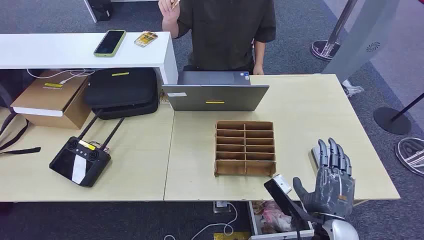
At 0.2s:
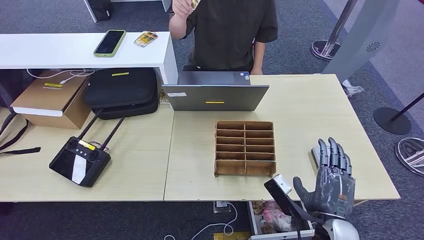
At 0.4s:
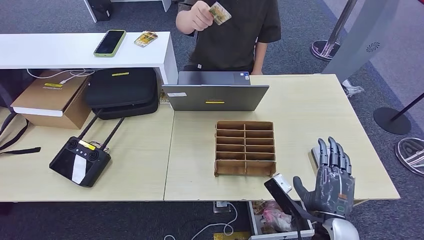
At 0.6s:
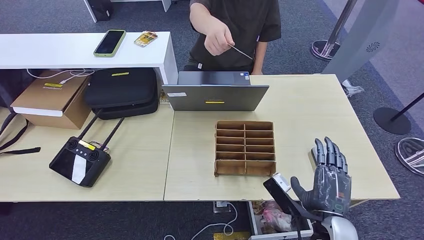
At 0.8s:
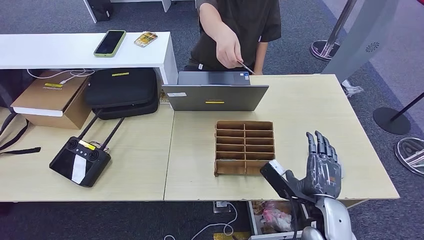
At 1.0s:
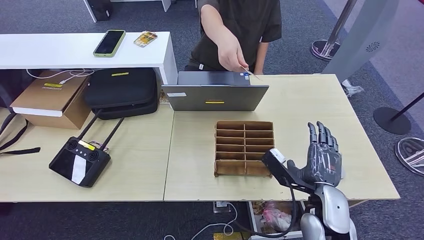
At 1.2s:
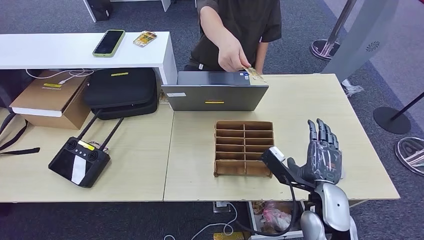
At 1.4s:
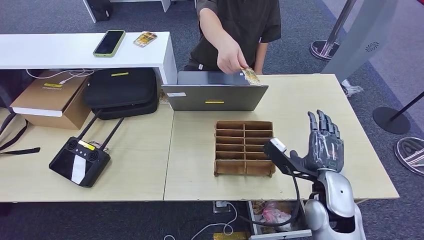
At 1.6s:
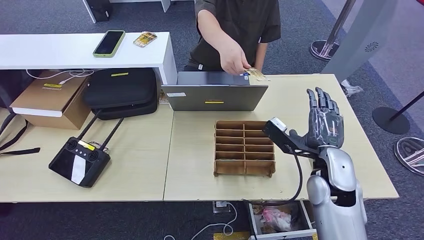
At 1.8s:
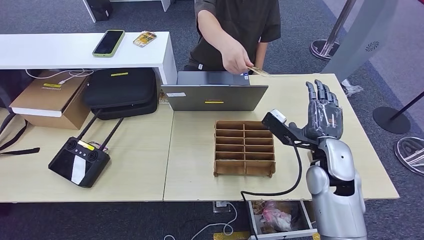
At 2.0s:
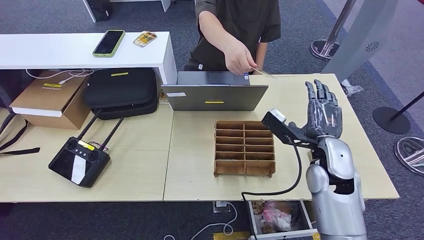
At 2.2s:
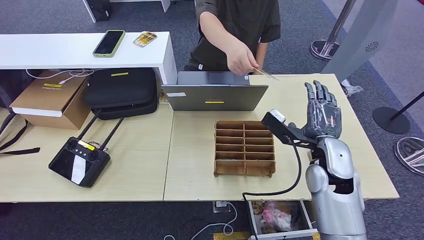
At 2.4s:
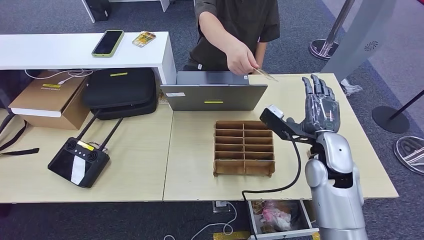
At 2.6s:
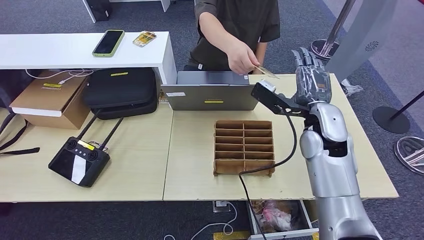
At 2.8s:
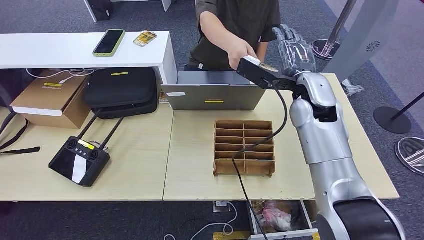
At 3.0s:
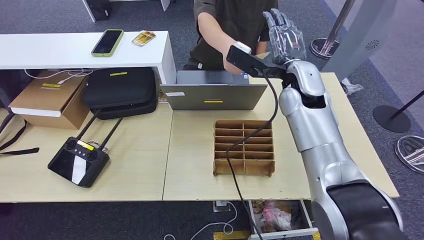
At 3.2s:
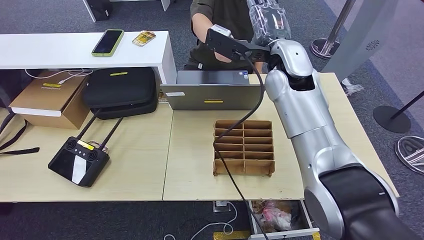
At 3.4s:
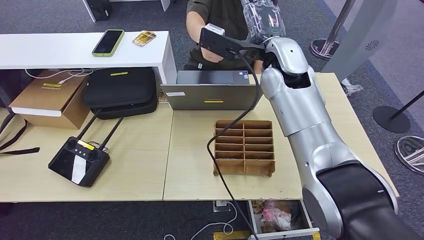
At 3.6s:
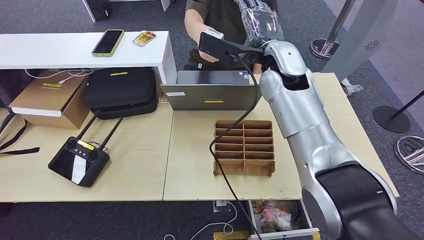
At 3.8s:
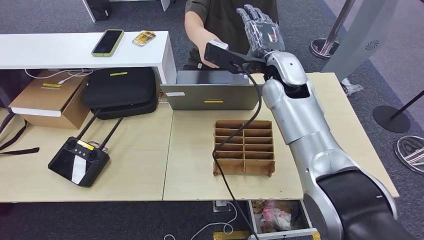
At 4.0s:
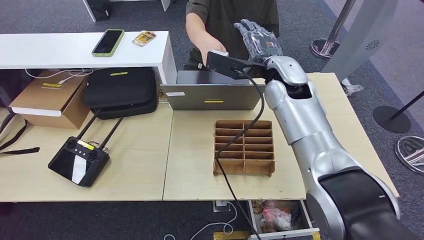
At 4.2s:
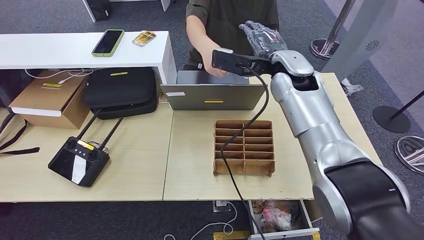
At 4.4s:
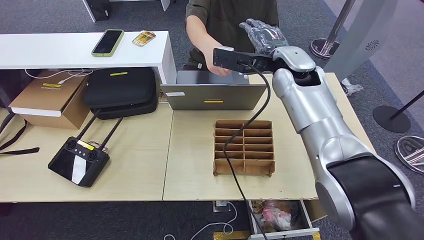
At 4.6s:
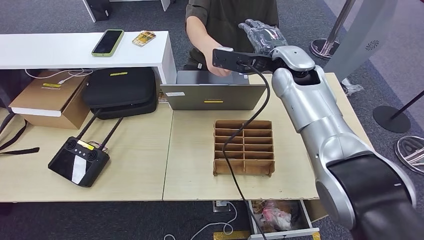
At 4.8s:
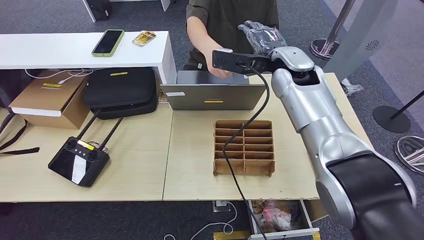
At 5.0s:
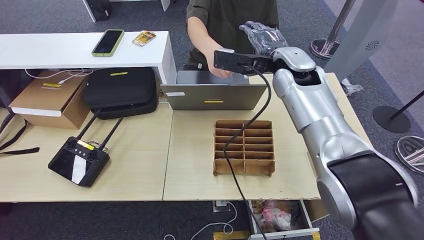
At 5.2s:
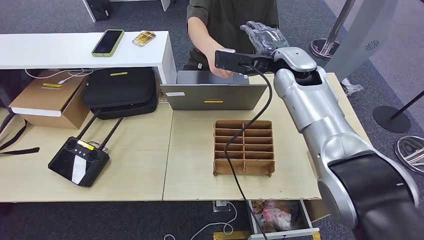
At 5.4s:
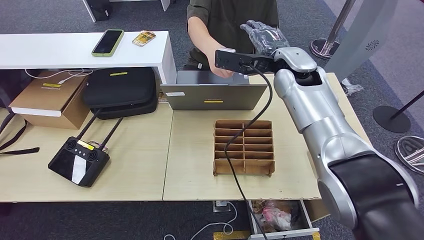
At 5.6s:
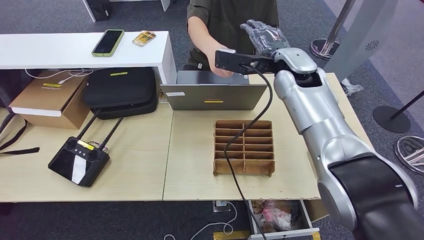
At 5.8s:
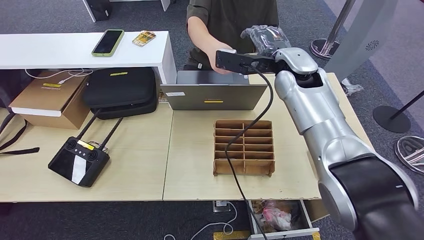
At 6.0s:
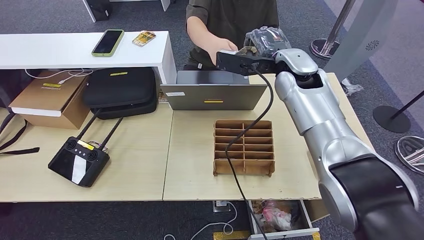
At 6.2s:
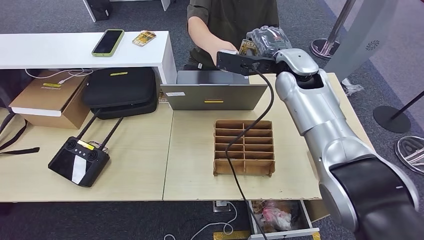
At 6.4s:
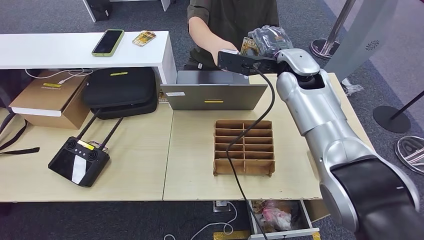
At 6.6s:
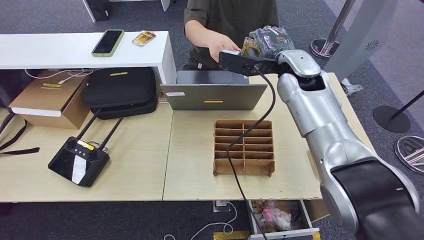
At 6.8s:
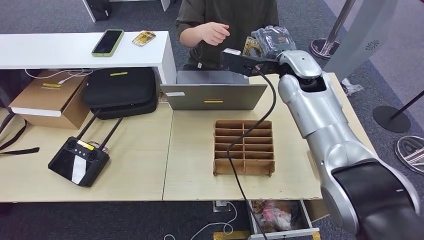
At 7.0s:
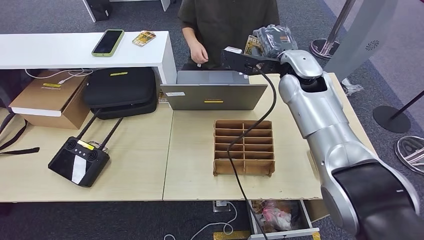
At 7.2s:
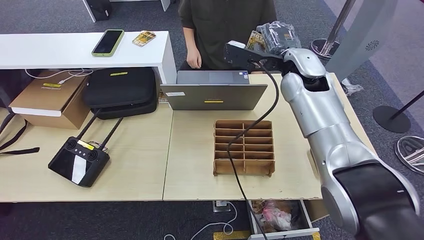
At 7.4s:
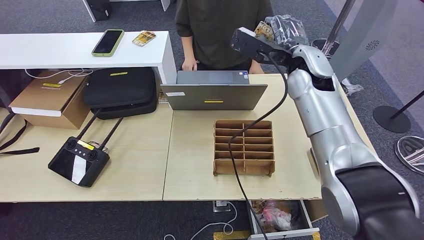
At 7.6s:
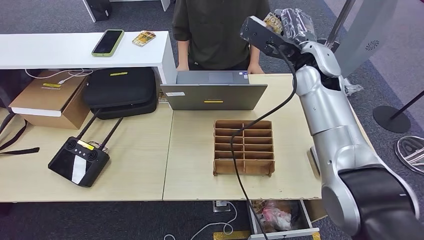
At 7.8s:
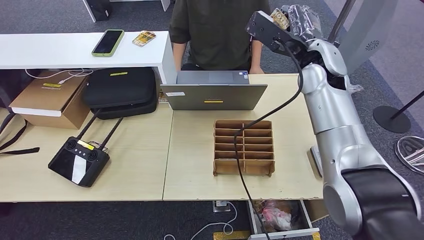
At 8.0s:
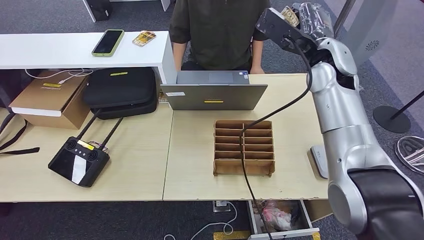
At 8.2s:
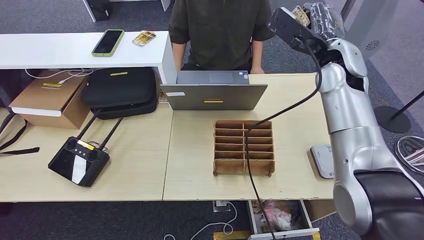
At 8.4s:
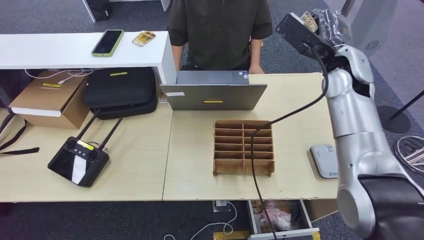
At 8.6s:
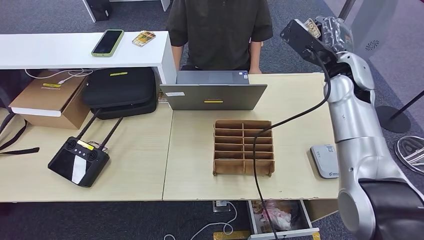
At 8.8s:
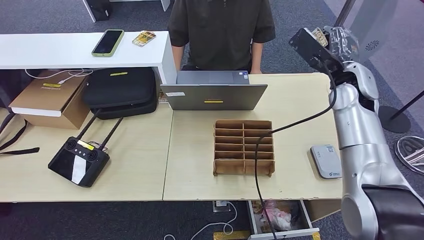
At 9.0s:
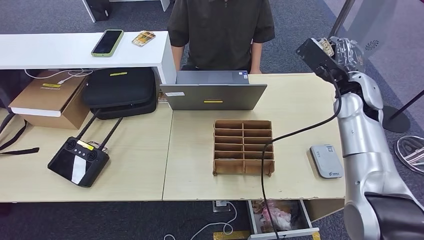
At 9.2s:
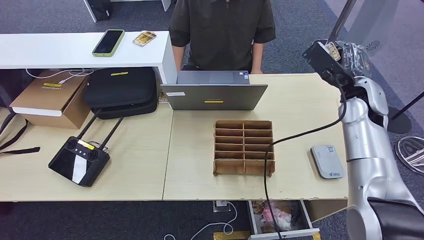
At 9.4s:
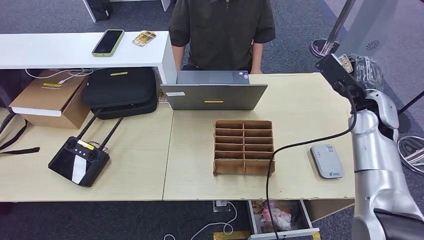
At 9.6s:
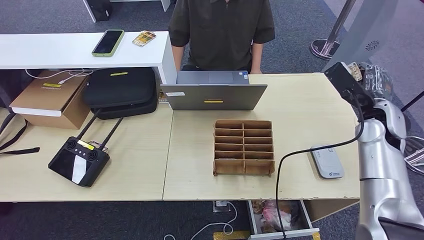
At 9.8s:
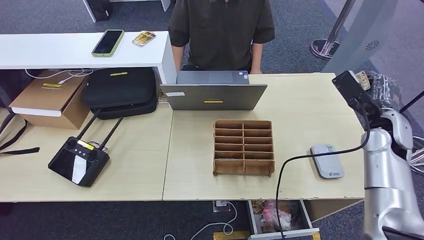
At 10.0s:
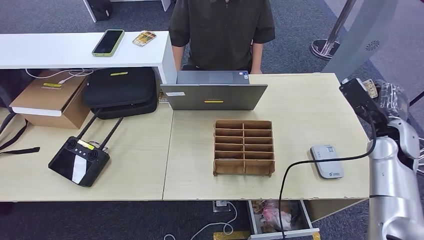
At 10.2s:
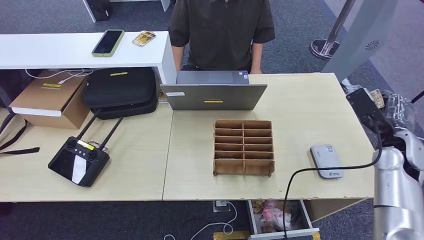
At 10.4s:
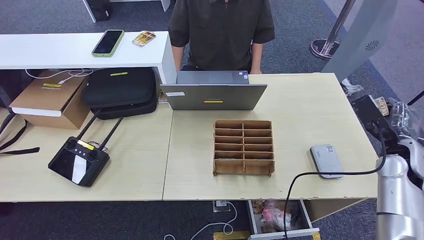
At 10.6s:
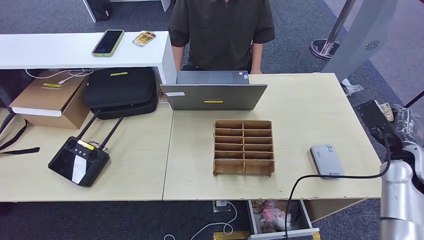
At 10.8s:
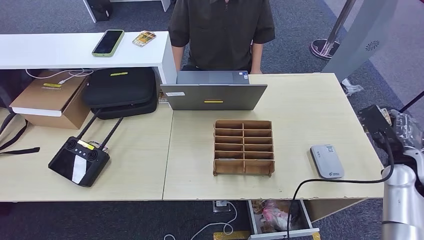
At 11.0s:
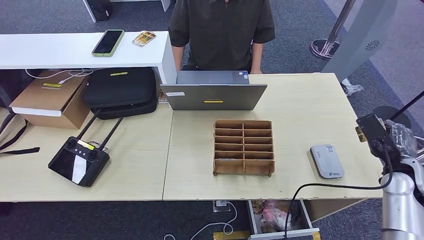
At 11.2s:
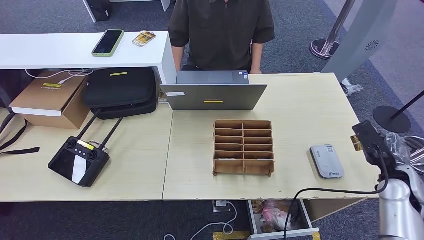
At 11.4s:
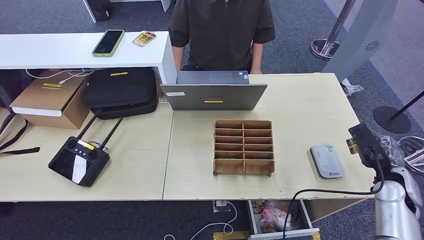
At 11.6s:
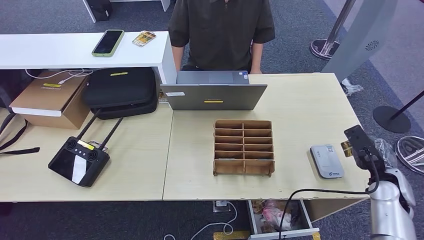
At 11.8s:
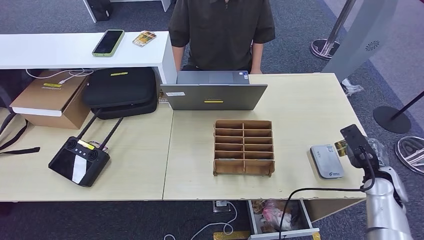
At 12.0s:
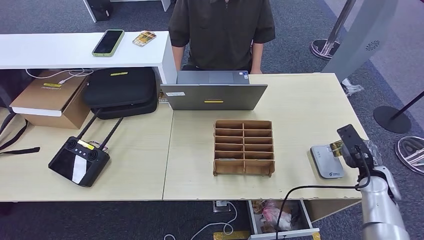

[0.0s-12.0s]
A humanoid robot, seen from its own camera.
Step, 0.0s to 6.8s: Take the ID card from the person's hand.
1.6s to 3.0s: The right hand is displaced forward and upward by some 20 cm.
4.4s to 6.0s: Neither hand changes place.
7.6s to 9.0s: The right hand heads to the right and downward, covering some 15 cm.
9.0s to 10.4s: The right hand moves to the right, downward and backward, roughly 20 cm.
10.4s to 12.0s: The right hand heads downward, covering about 10 cm.

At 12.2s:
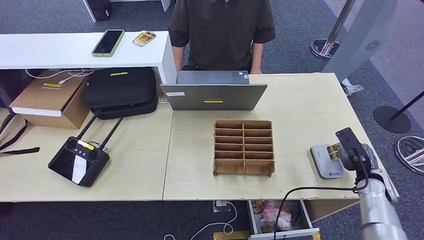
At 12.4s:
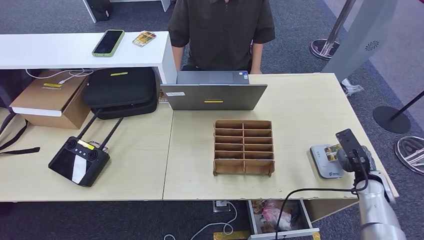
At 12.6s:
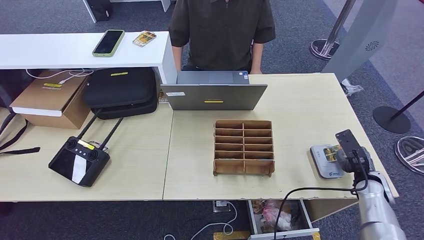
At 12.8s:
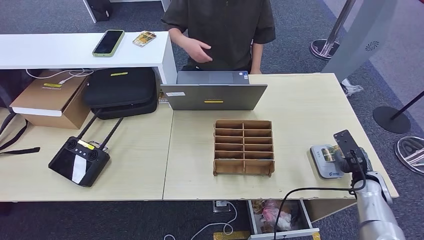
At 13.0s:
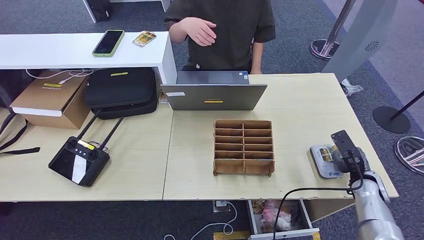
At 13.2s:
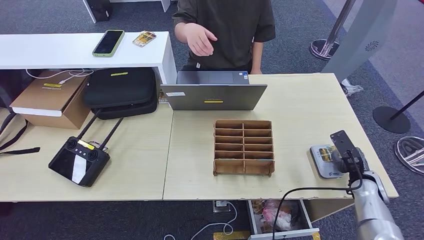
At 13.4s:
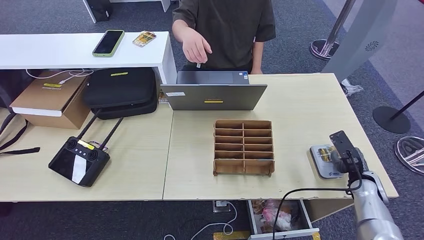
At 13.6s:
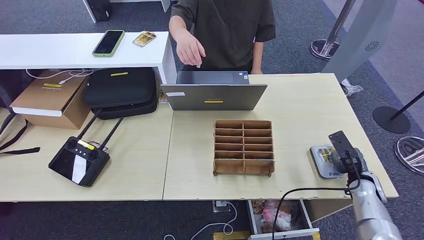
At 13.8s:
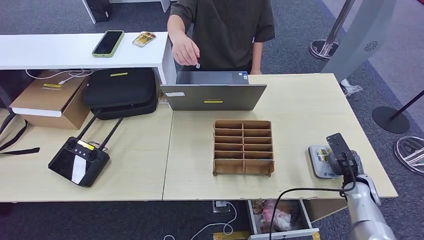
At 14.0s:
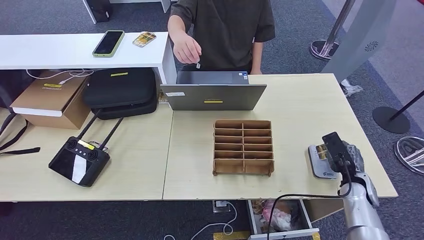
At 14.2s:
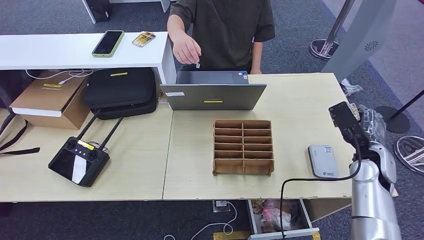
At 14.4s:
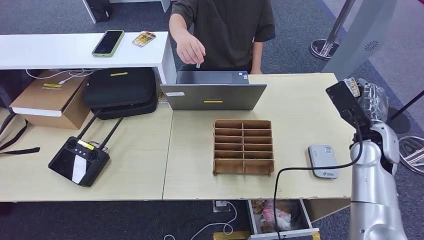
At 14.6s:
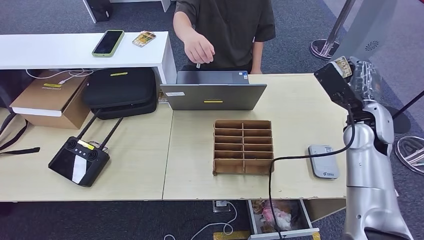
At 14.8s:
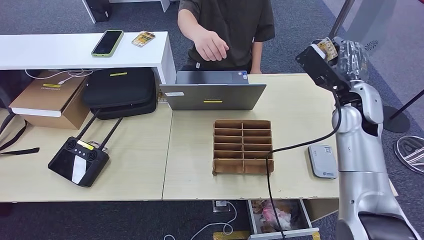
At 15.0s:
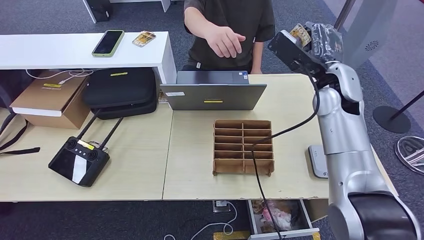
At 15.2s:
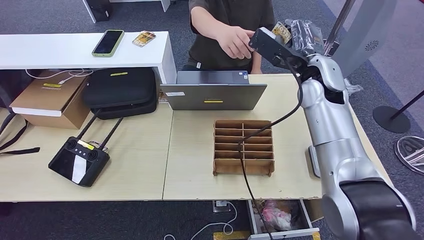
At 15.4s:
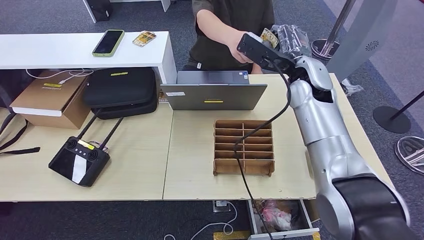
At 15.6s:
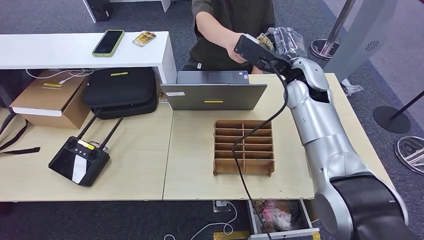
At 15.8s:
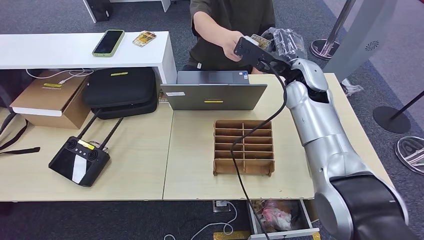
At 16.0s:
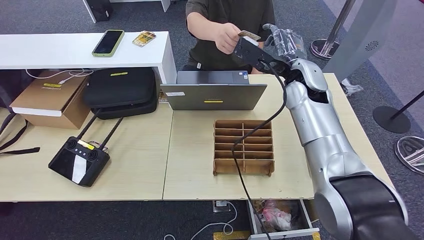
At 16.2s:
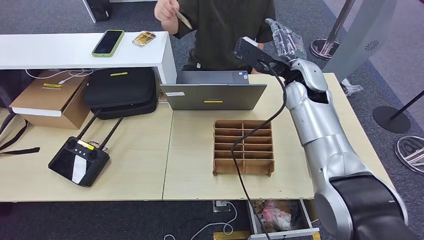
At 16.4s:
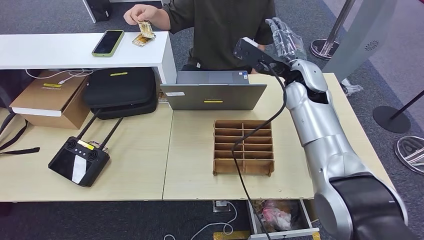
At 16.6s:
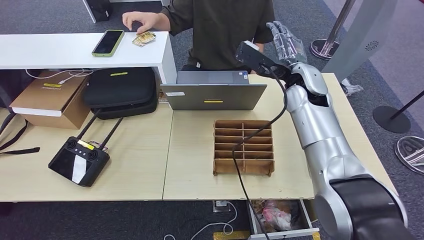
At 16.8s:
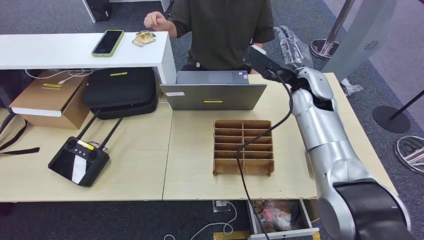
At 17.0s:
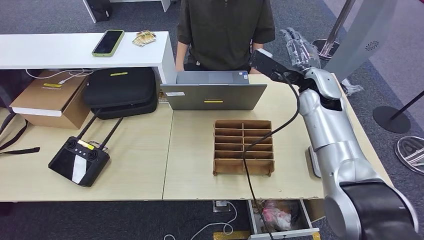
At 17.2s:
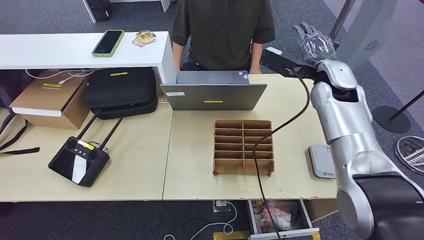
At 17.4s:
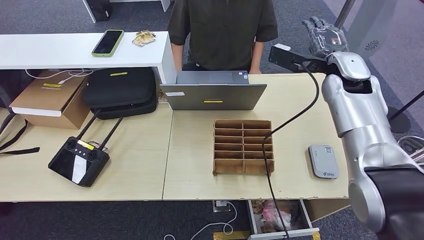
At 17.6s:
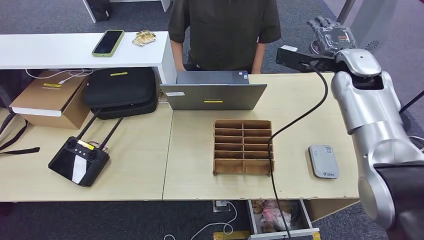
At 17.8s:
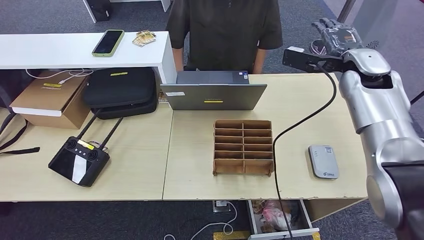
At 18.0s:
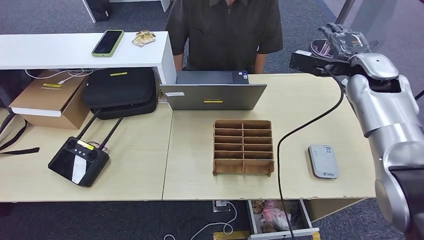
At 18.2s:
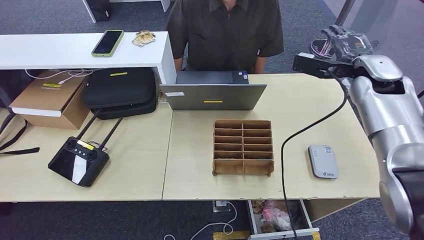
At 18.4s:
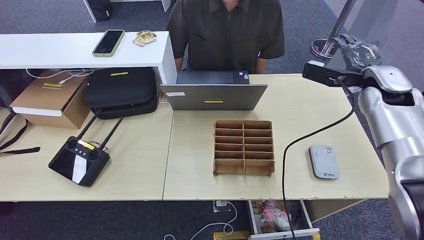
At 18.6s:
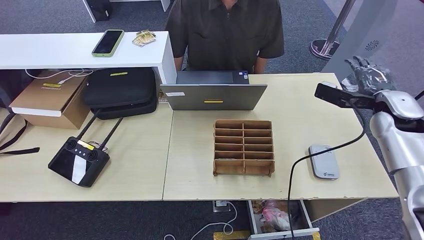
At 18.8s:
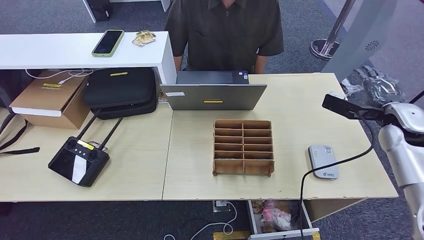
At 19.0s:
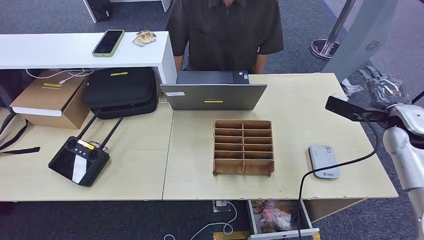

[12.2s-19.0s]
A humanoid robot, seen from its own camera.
Step, 12.2s to 16.6s: Hand the ID card to the person.
12.2s to 13.6s: The hands move only a little.
13.6s to 15.0s: The right hand goes about 35 cm upward, to the left and forward.
15.0s to 16.2s: The right hand moves to the left, some 5 cm.
16.2s to 17.6s: The right hand is displaced to the right by some 10 cm.
17.6s to 19.0s: The right hand is displaced to the right, downward and backward by roughly 20 cm.
